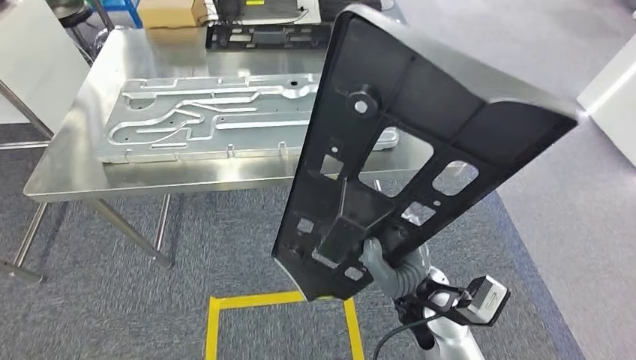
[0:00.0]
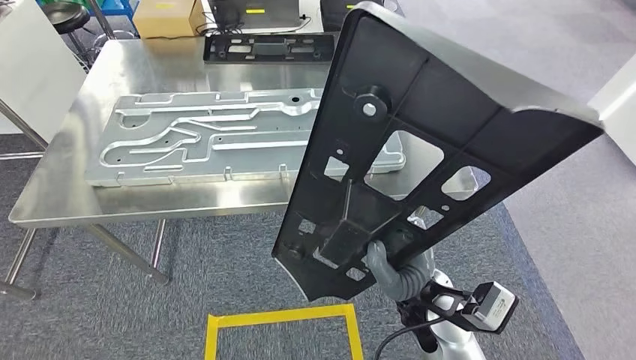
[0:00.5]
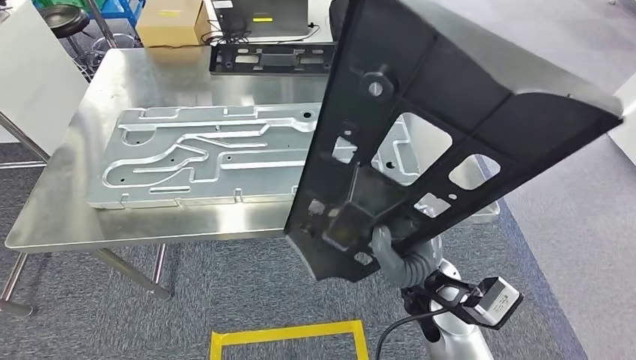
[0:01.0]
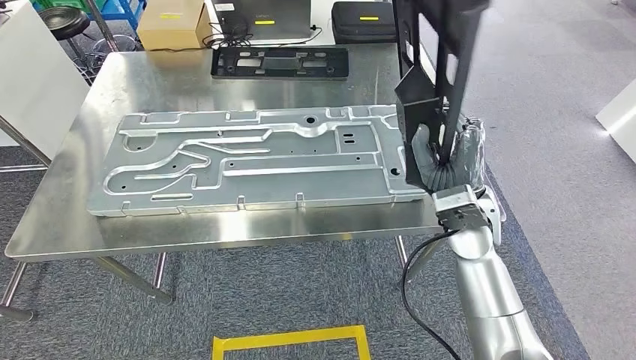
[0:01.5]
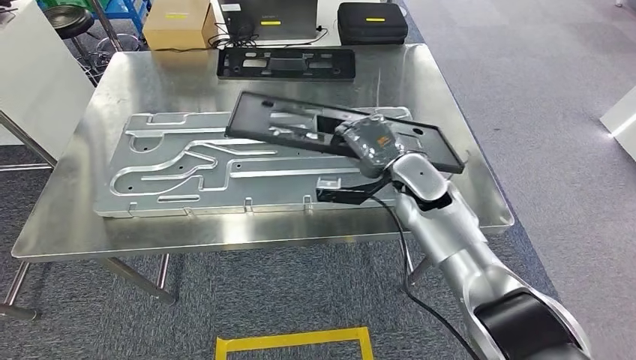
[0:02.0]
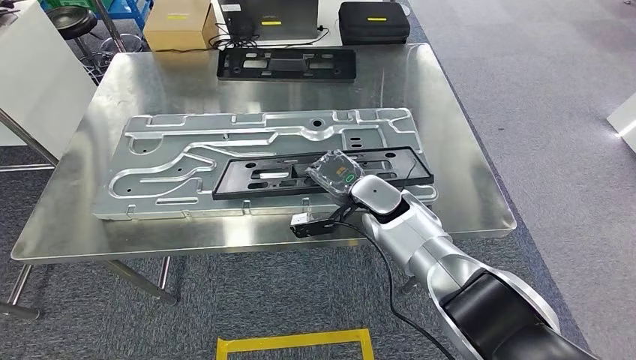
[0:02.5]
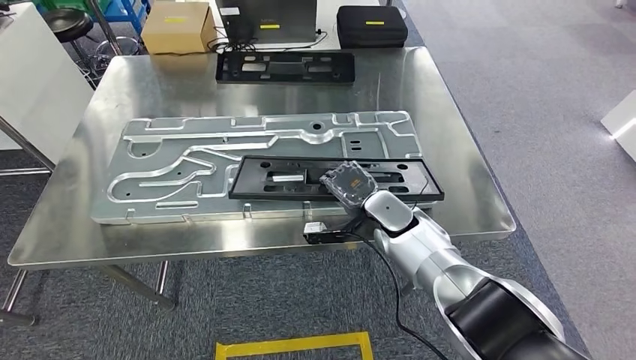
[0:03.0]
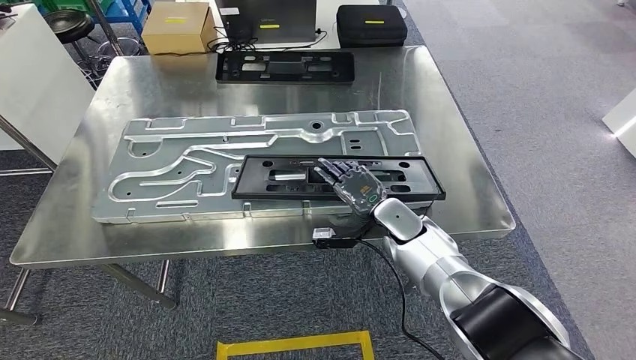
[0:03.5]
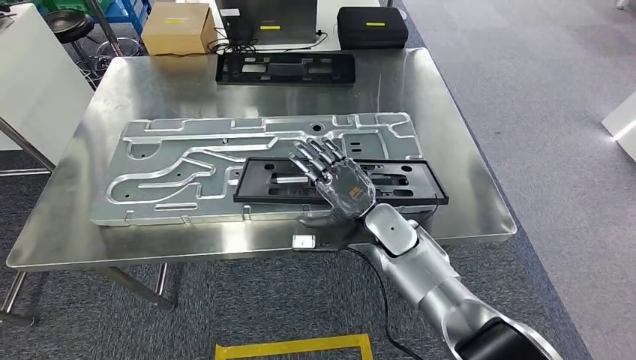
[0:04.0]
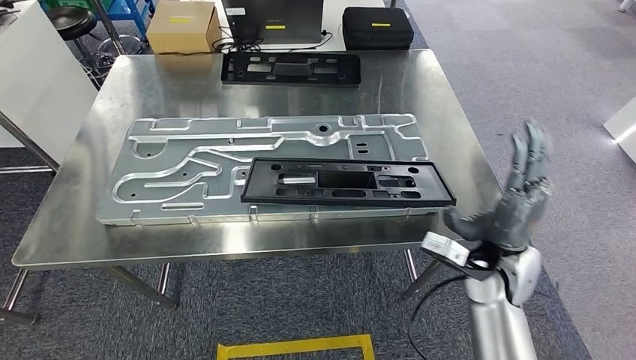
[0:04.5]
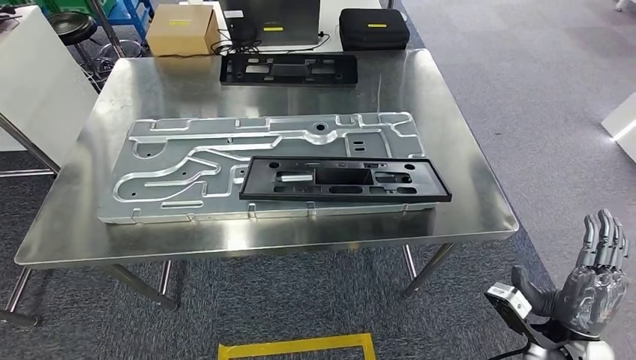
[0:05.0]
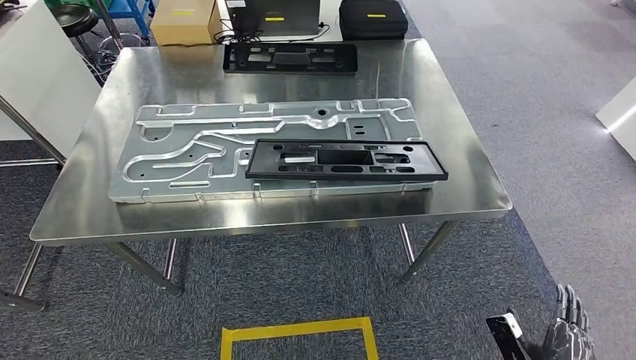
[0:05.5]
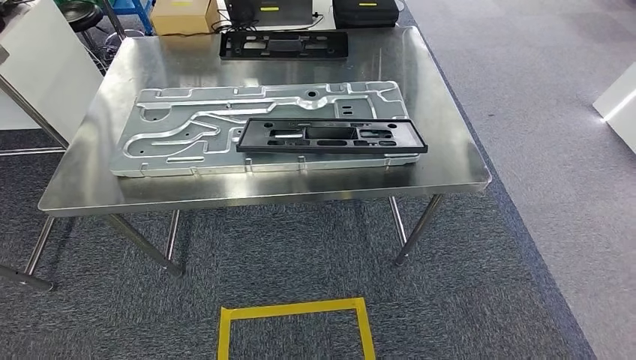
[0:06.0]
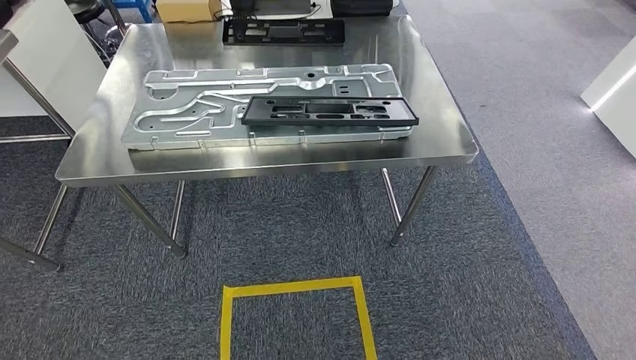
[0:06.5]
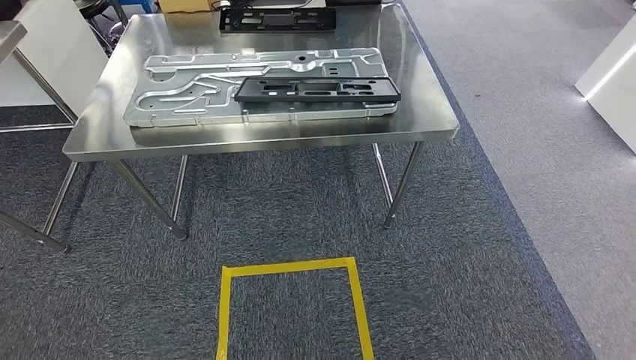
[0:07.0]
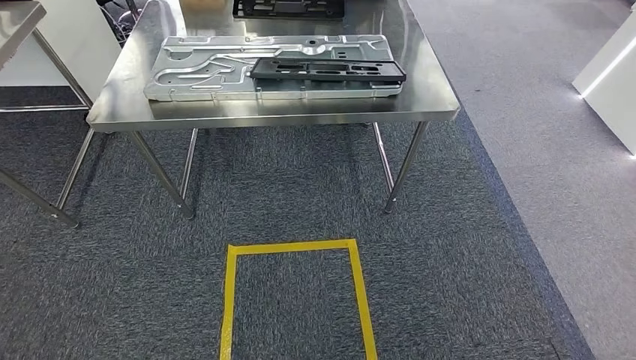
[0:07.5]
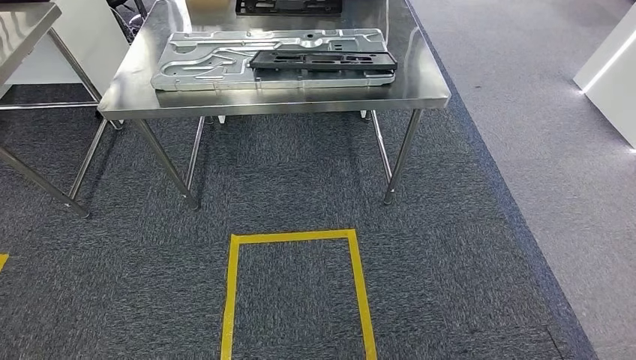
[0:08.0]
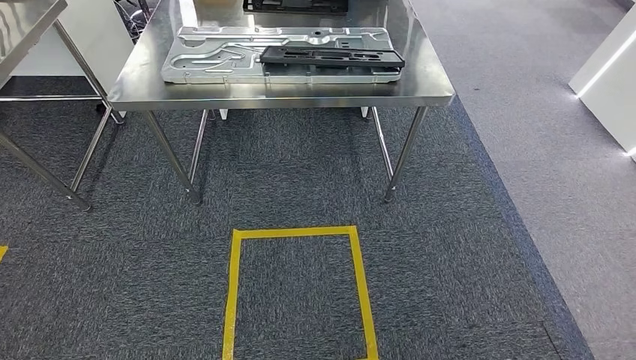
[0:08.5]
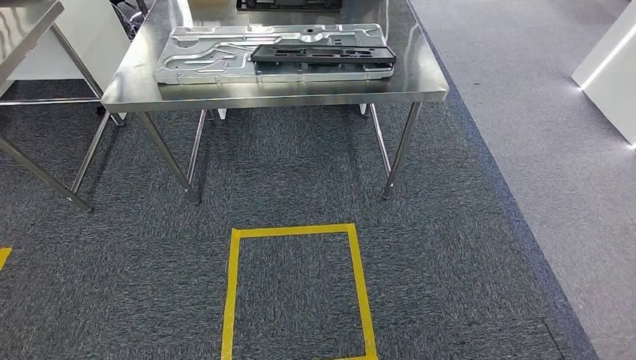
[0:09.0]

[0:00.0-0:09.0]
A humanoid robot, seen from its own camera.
Step, 0:00.0 to 0:04.5: Insert the large material into the corresponding hole on the workbench.
Step, 0:05.0 to 0:09.0: Move to the initial position of the shelf.
